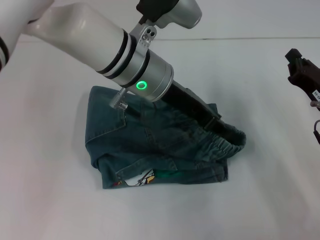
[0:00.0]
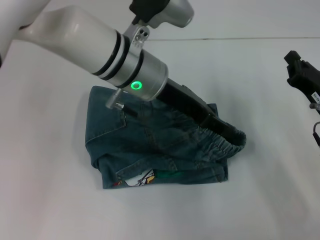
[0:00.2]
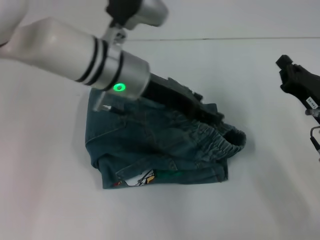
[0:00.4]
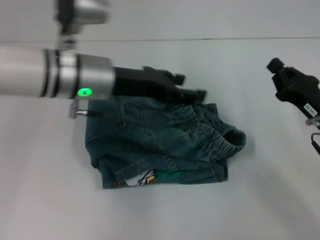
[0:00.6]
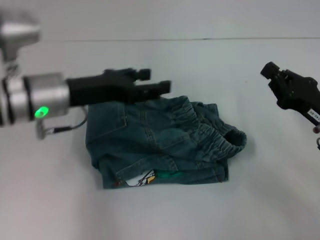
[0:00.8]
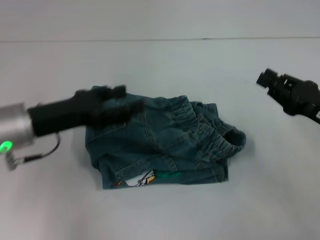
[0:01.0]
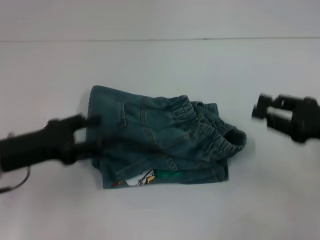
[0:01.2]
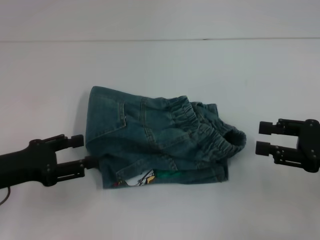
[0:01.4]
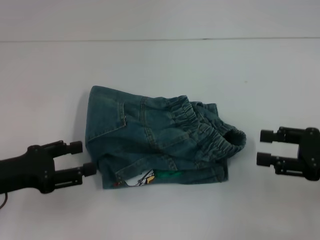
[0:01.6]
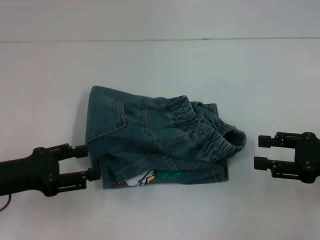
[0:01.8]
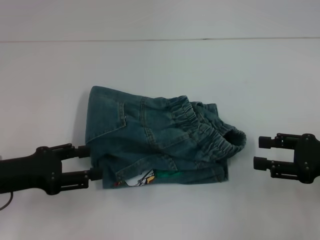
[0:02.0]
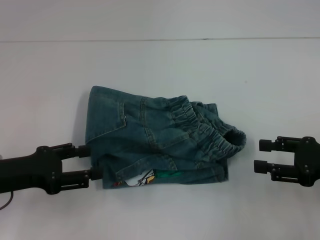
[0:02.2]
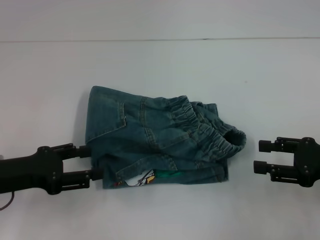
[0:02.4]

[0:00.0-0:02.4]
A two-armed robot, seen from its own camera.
0:00.0 to 0:01.2: The right gripper moves upward, about 5 cm; the left gripper shifts roughly 25 cm to the left and backward, and opens its fingers.
0:01.2 to 0:02.4: The right gripper opens its fingers.
